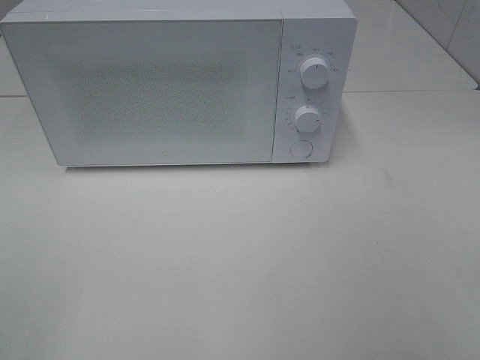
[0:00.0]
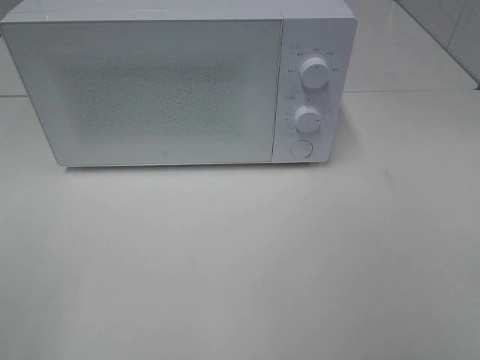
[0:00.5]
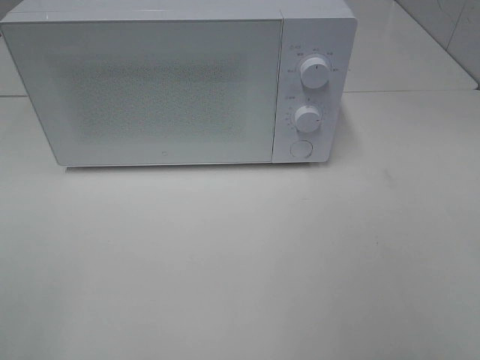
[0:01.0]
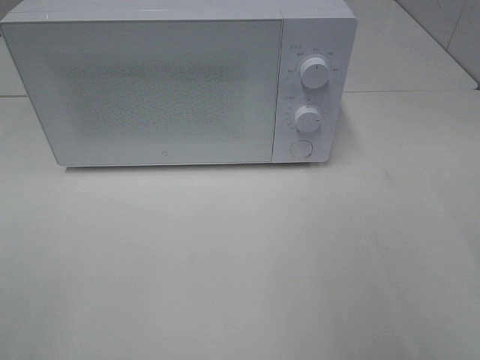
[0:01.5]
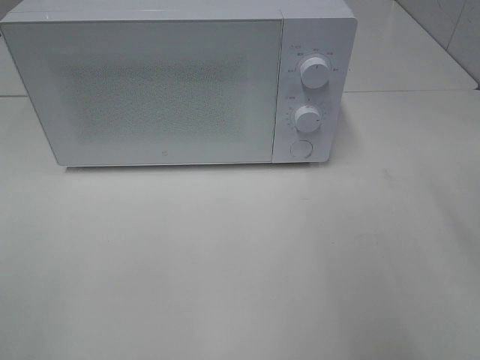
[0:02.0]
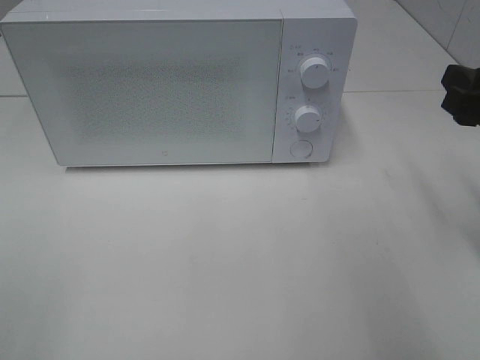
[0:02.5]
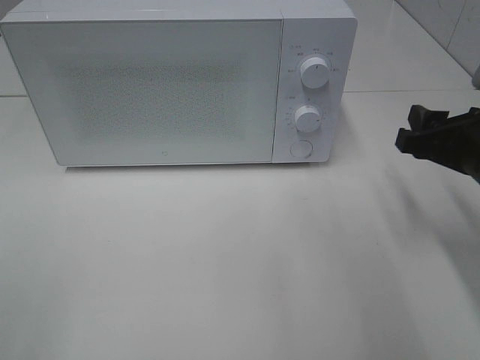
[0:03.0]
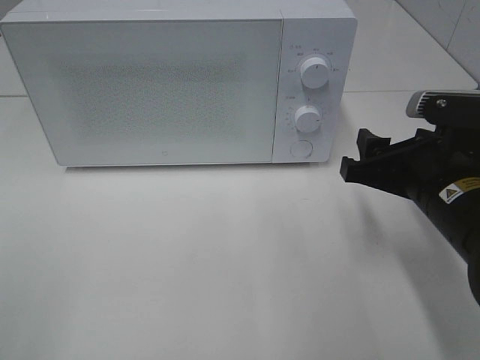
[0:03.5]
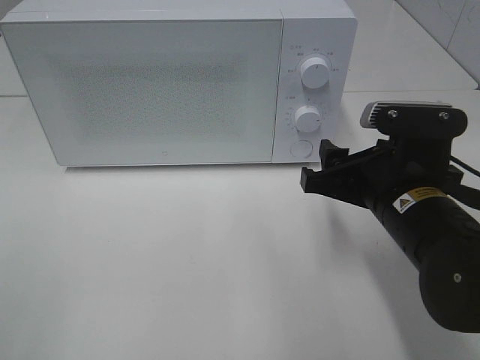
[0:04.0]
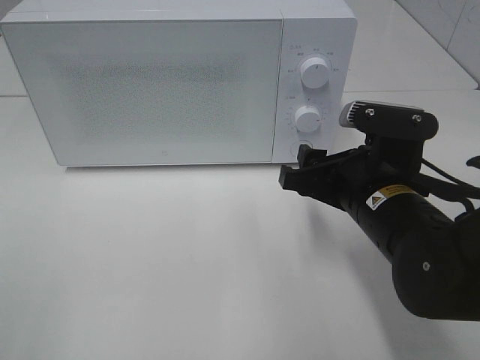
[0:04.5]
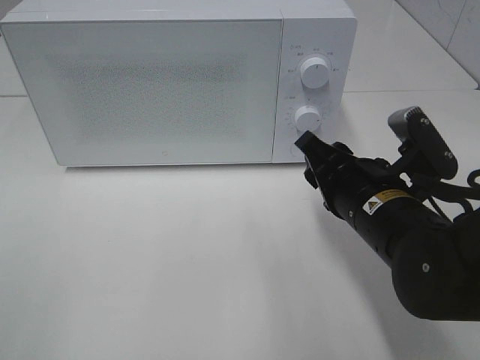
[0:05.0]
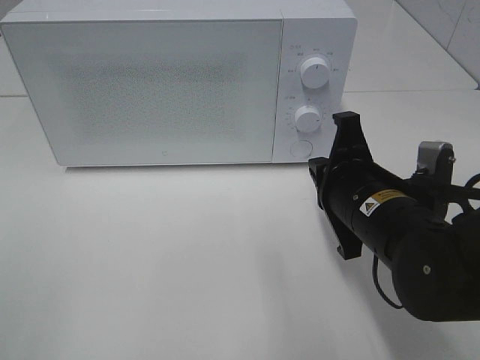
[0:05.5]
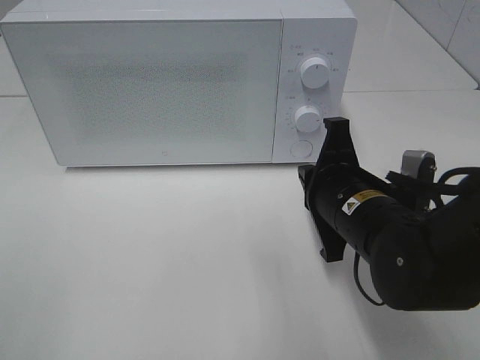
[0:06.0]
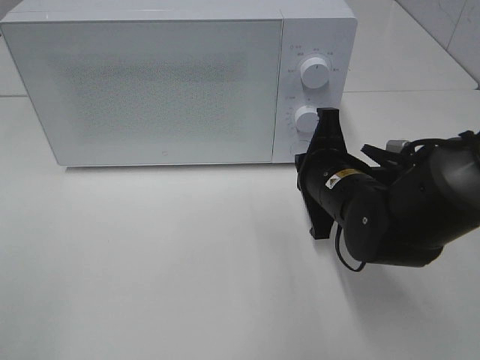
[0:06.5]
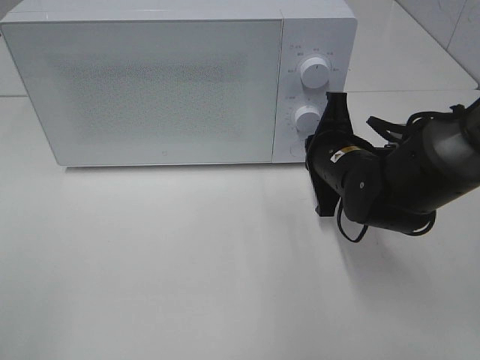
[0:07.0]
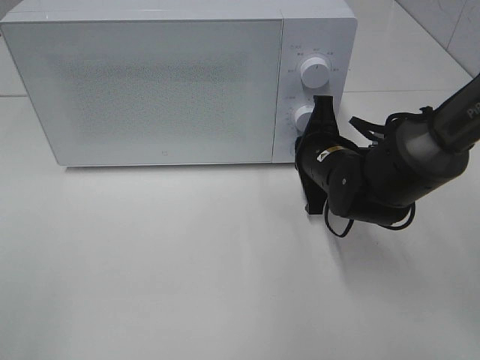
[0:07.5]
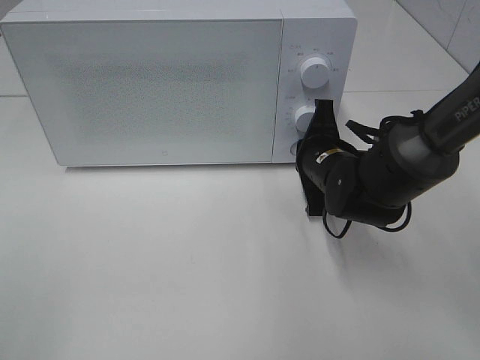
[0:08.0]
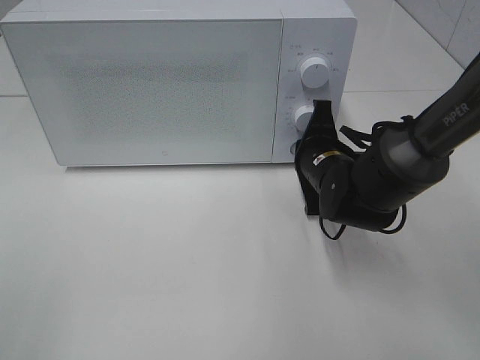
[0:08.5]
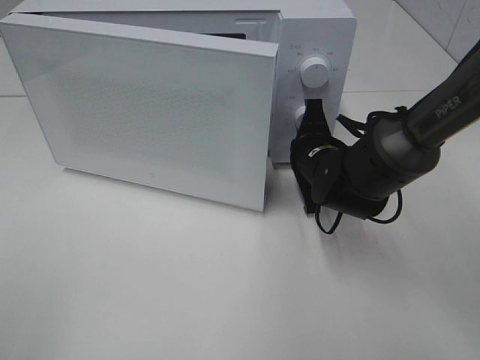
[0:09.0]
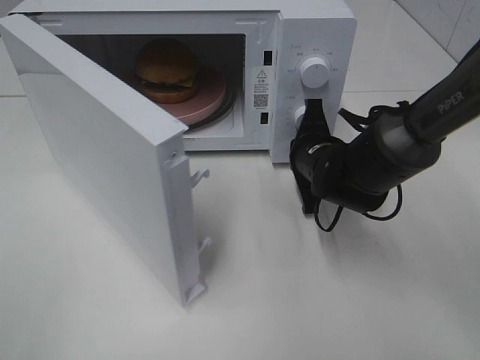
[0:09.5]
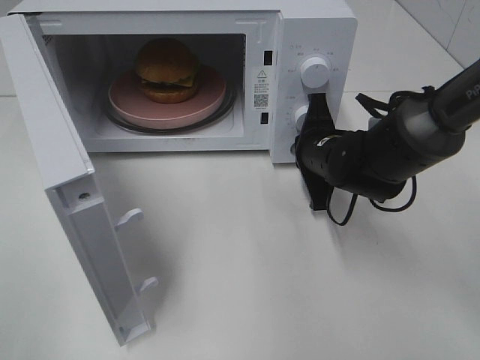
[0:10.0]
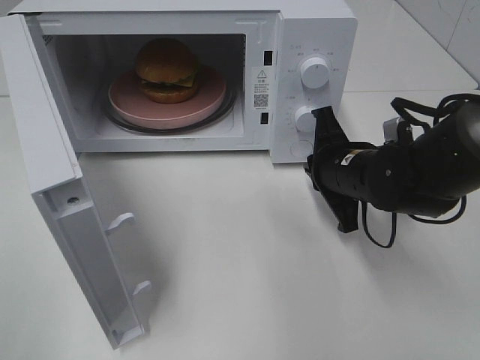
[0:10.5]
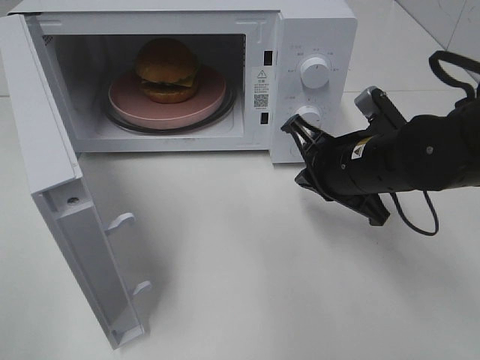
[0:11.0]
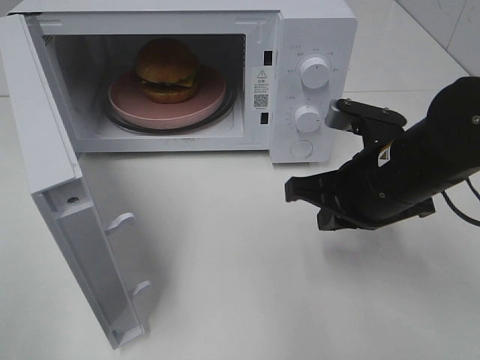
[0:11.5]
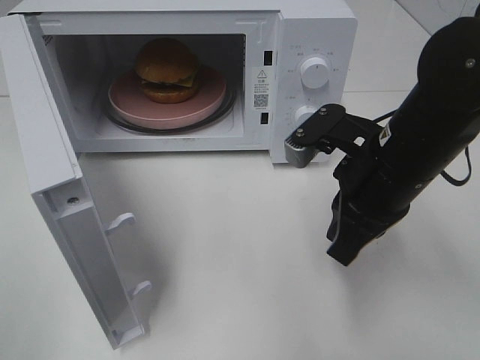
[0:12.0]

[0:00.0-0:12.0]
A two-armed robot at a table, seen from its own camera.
Task of the whole recording: Heat the burger.
Step, 0:00.0 to 0:10.0: Right hand: press the switch.
0:02.0 to 0:04.0: The right gripper goes approximately 20 cm downward and to the left.
0:04.0 to 0:06.0: The right gripper closes its fingers.
0:06.0 to 0:08.0: The right gripper heads forward, covering some 10 cm.
0:10.0 to 0:12.0: The right gripper travels backward and upward by some 15 cm.

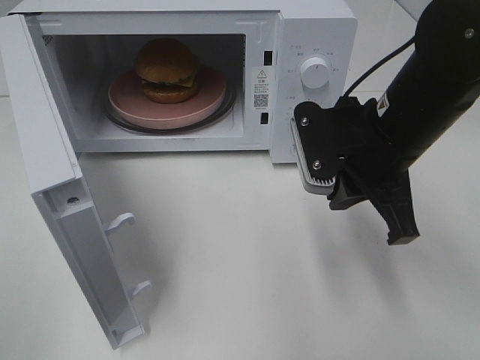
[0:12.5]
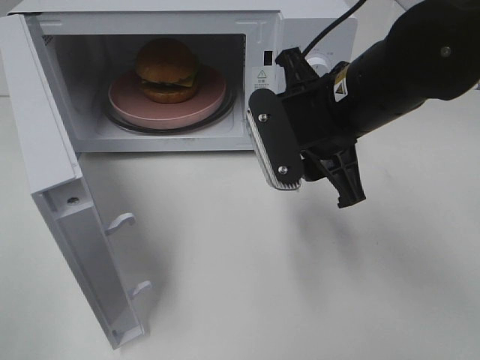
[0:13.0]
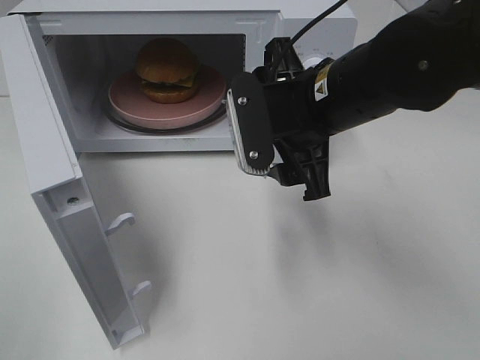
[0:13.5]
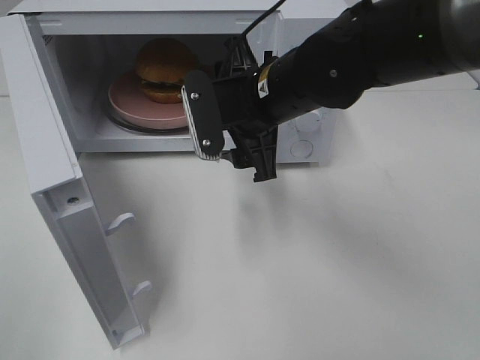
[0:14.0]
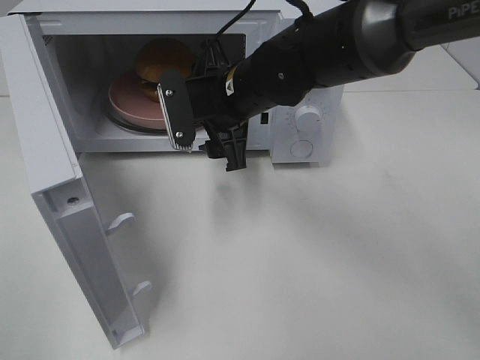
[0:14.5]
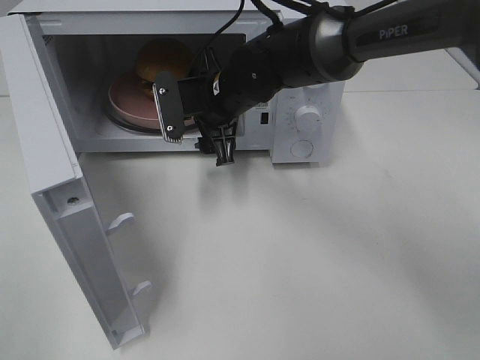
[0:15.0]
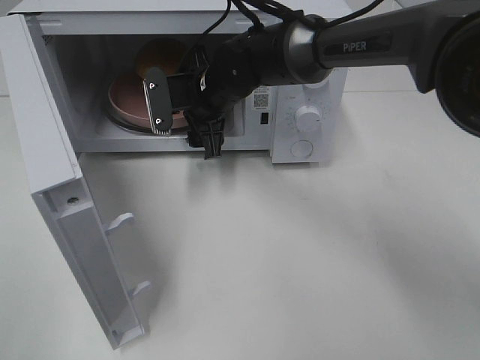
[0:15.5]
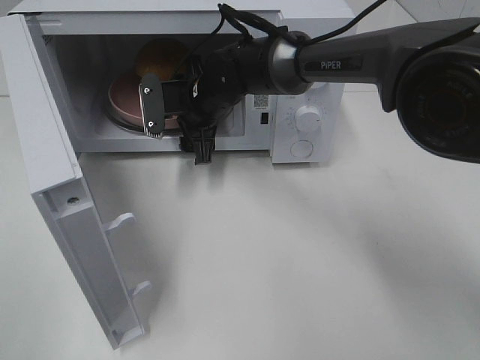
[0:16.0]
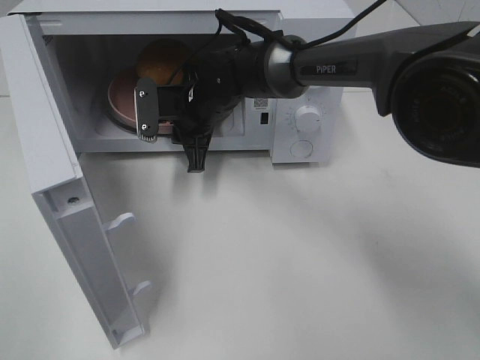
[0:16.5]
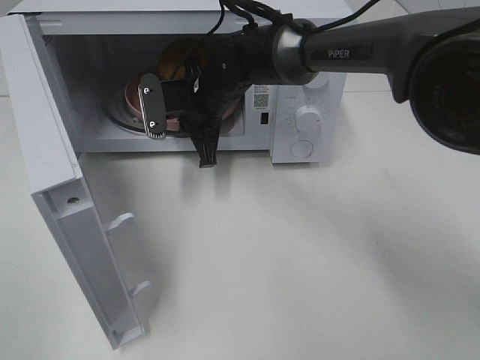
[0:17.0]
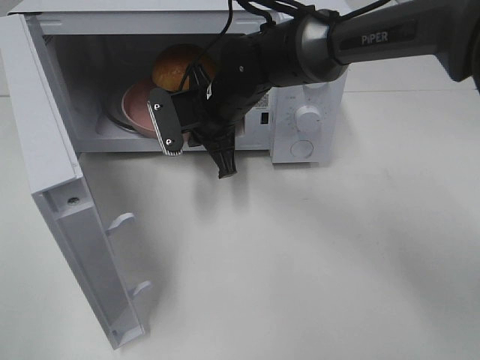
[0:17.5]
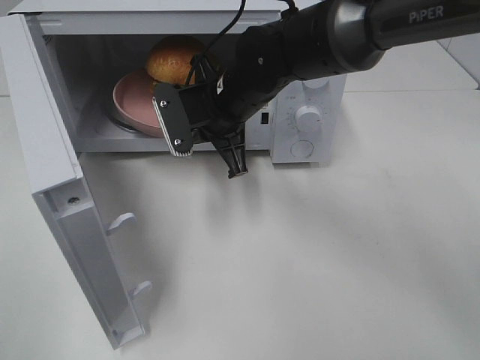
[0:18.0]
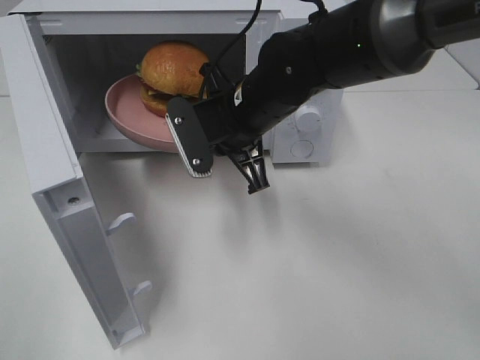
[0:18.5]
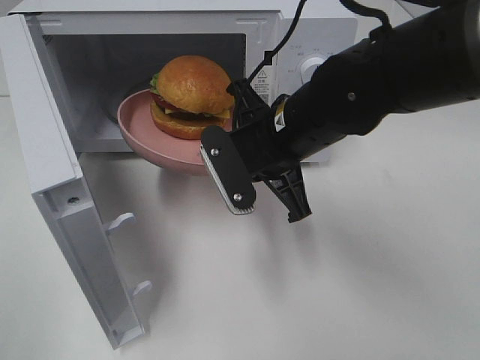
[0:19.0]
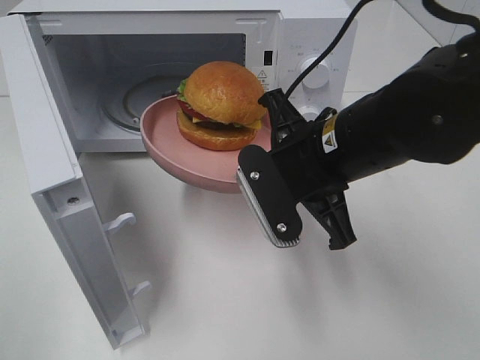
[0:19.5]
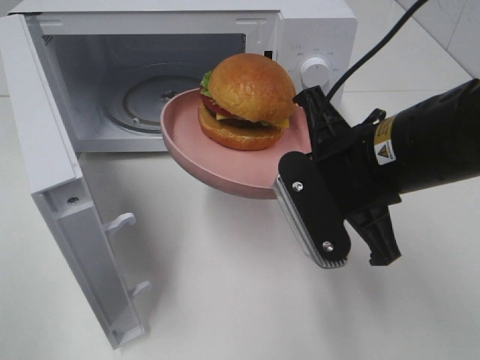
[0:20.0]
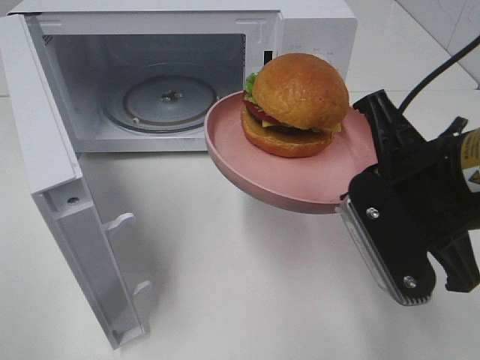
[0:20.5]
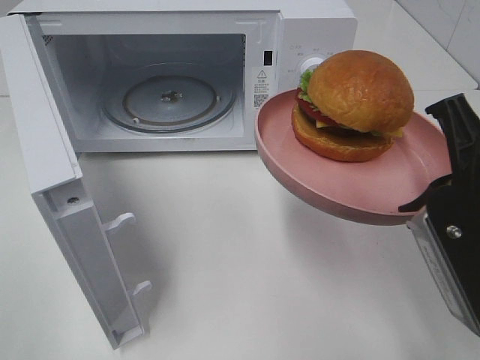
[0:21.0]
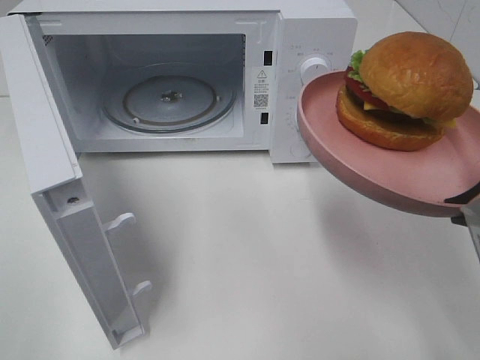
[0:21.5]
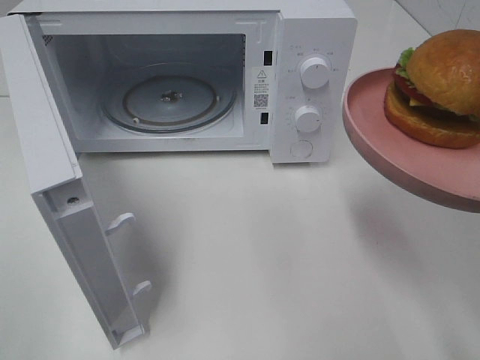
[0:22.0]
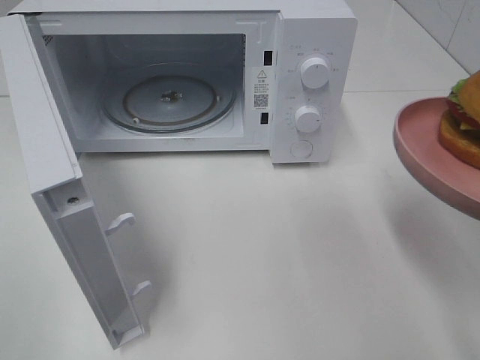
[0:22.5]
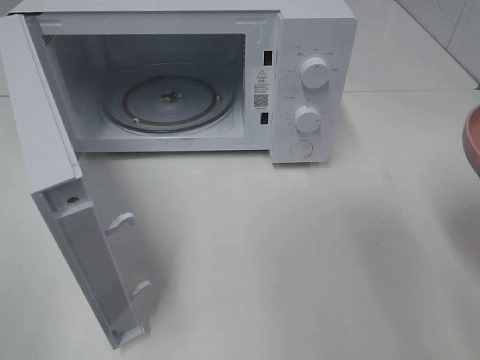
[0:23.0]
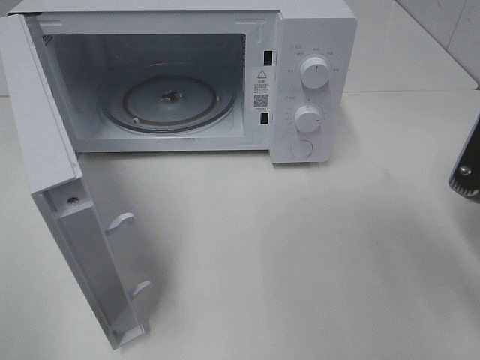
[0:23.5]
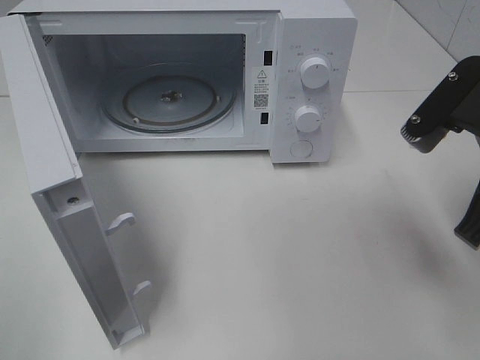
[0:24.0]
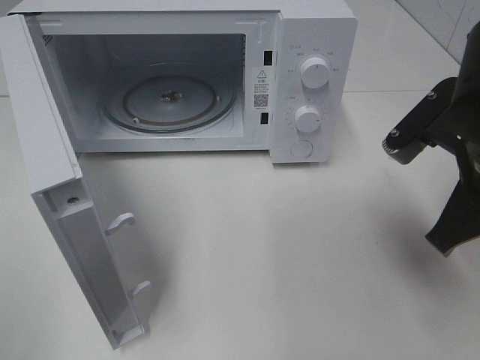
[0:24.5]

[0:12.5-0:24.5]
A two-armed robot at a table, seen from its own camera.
Task of the whole recording: Heat the burger.
Step, 0:12.5 to 0:16.5: Right hand: grab the plate with the hamburger.
0:12.5 to 0:14.5: The right gripper goes some 15 cm to the left and forward, and opens its fingers.
0:14.5 to 0:16.5: The right gripper travels forward and downward by about 10 cm, and closes.
0:16.5 to 0:18.5: The right gripper heads backward, to the right and upward, covering roughly 15 cm.
0:18.5 to 0:20.5: The right gripper is displaced backward and to the right by some 20 cm.
0:20.5 to 0:22.5: The right gripper travels to the right and backward by roughly 10 cm.
0:22.5 to 0:24.5: The right gripper travels forward and to the left by roughly 10 cm.

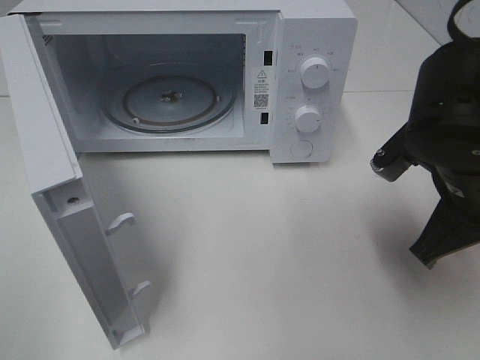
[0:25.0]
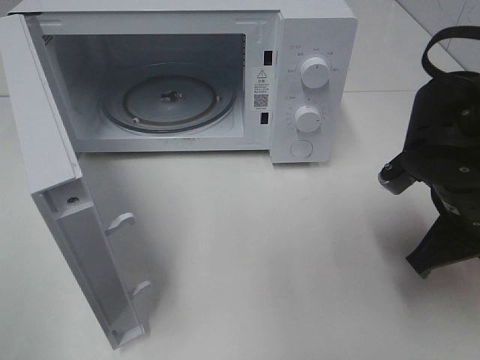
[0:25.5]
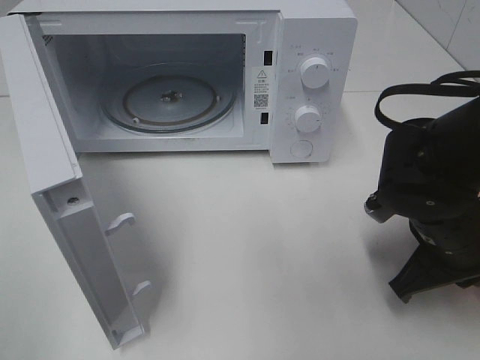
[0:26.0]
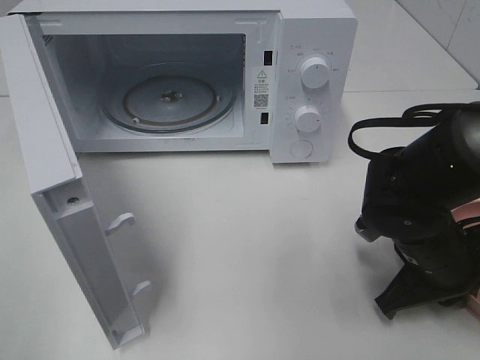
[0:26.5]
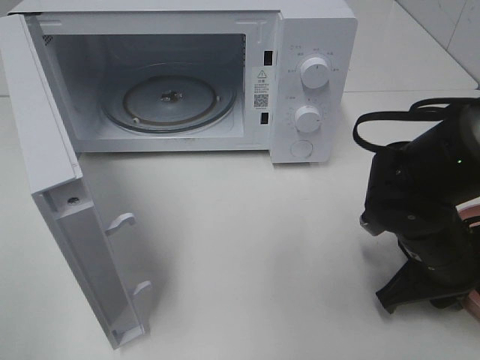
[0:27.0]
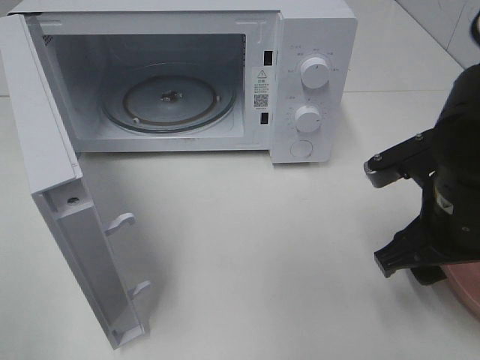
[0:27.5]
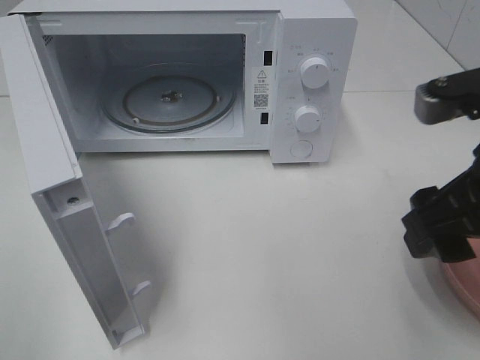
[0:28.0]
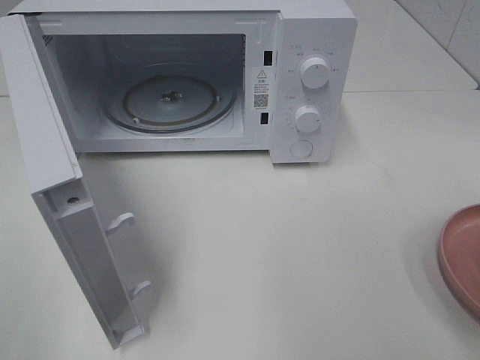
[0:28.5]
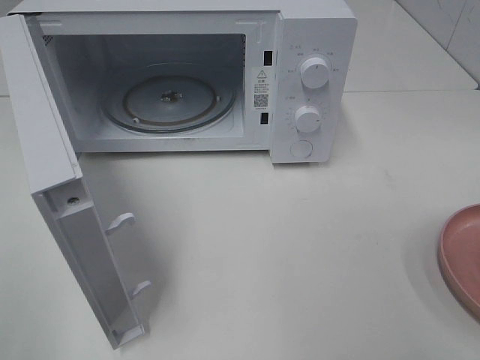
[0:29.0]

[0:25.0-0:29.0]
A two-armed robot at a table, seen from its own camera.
Task of the whole recording: Heat the burger.
Step, 0:25.0 to 0:27.0: Right hand: place the plate on the table.
0:25.0 to 0:27.0: The right gripper shifts about 10 cm downward.
0:27.0 to 0:29.0: The right gripper heads upward and backward, covering some 30 cm, and opens up.
